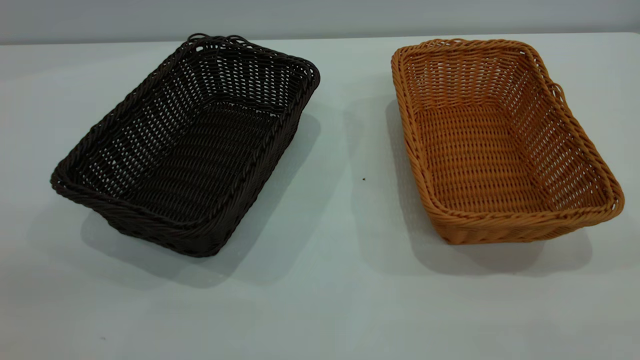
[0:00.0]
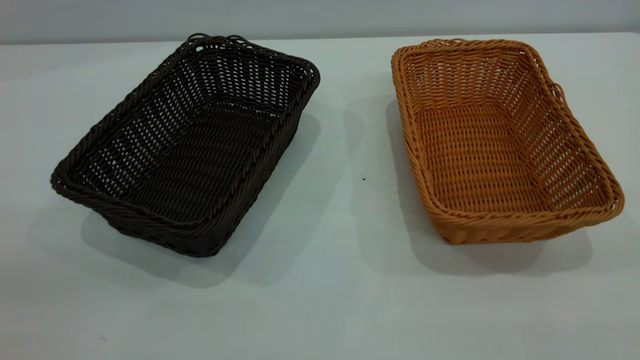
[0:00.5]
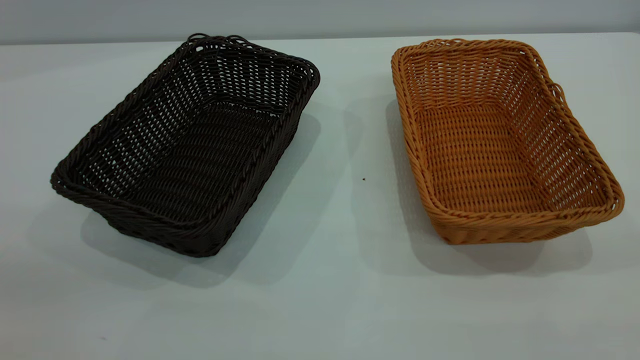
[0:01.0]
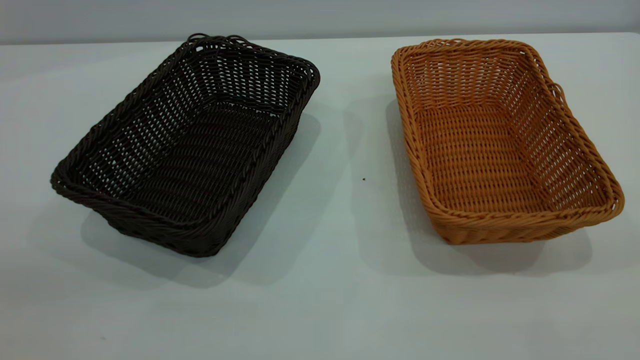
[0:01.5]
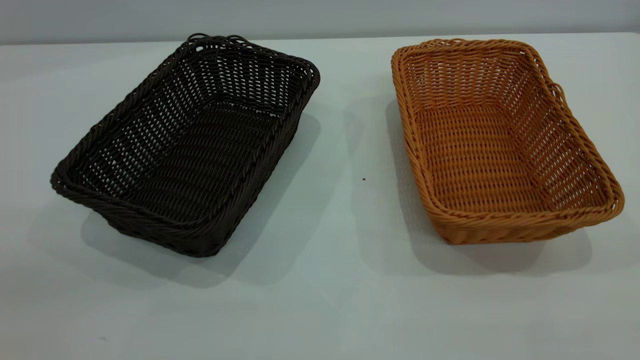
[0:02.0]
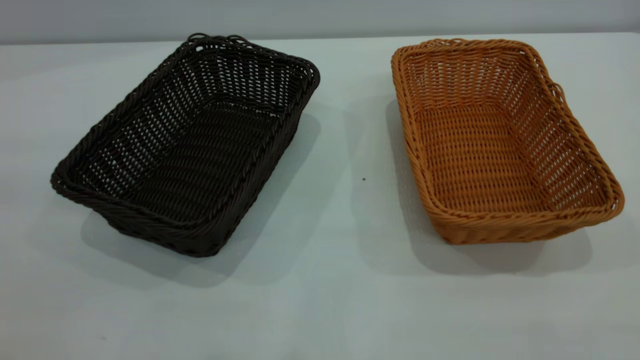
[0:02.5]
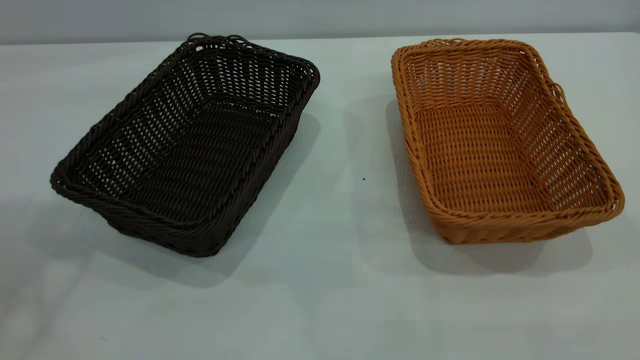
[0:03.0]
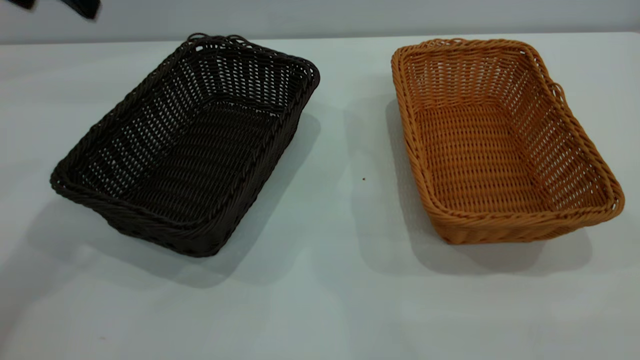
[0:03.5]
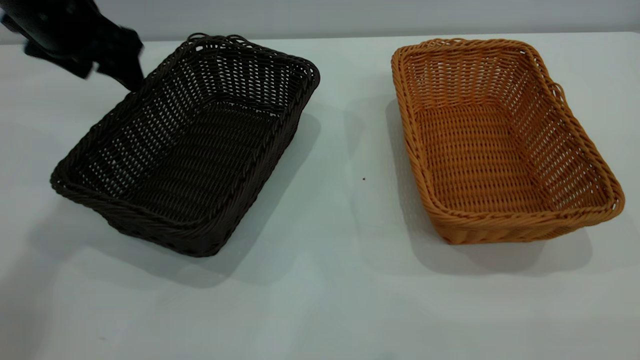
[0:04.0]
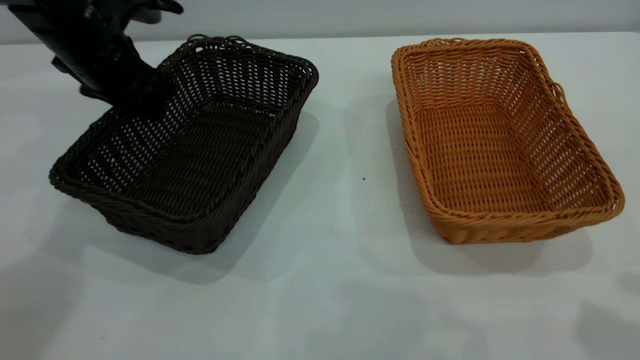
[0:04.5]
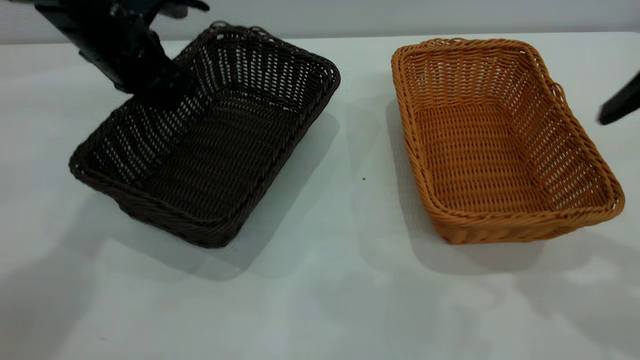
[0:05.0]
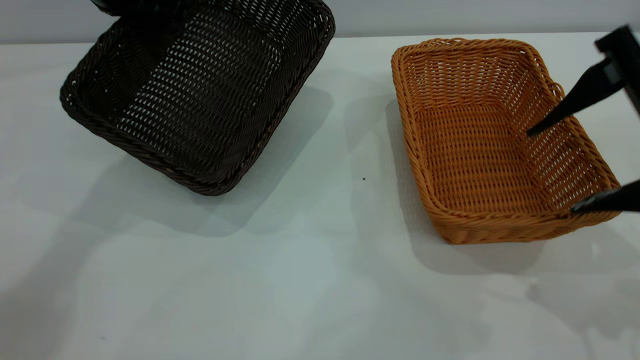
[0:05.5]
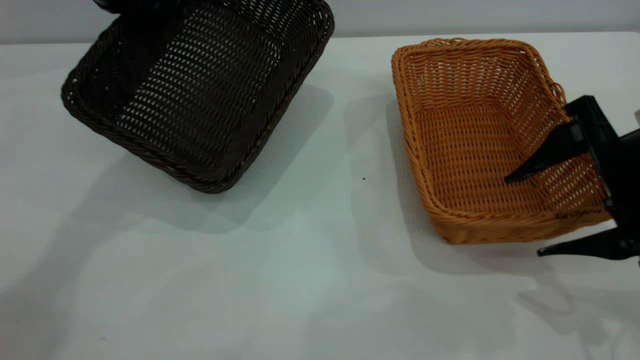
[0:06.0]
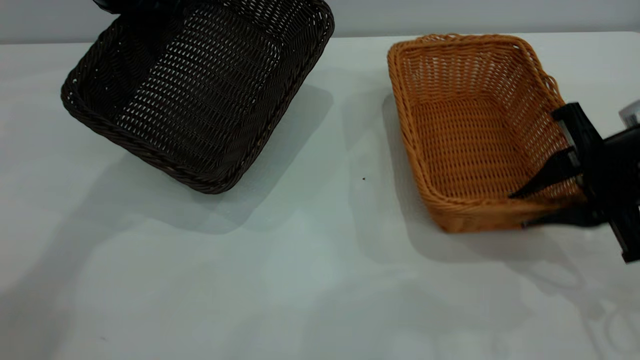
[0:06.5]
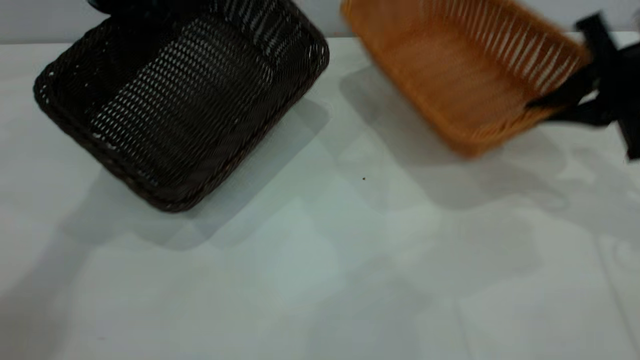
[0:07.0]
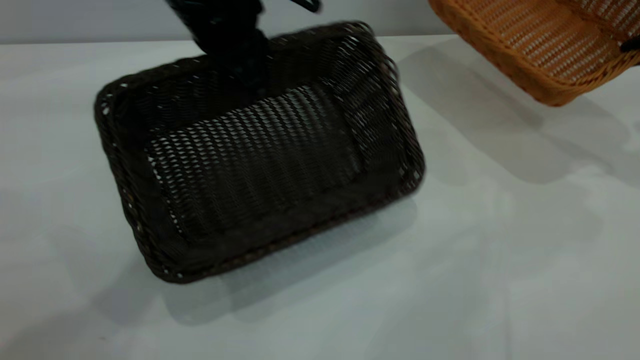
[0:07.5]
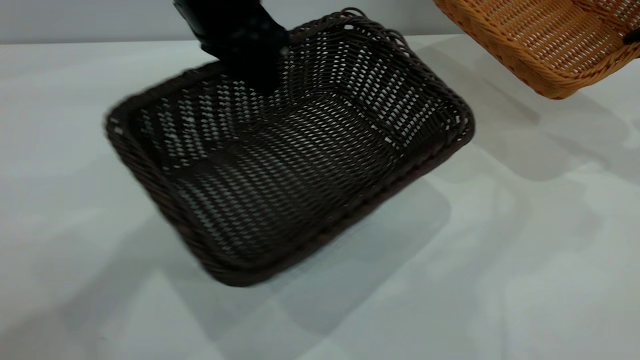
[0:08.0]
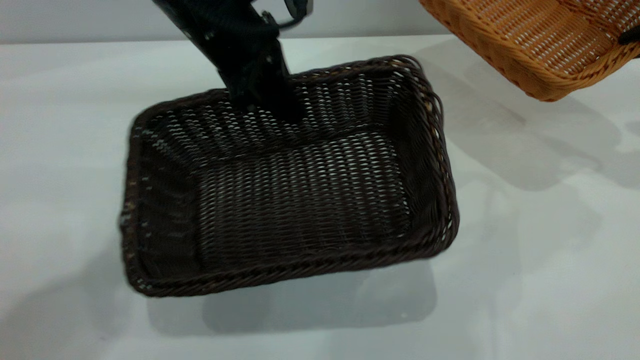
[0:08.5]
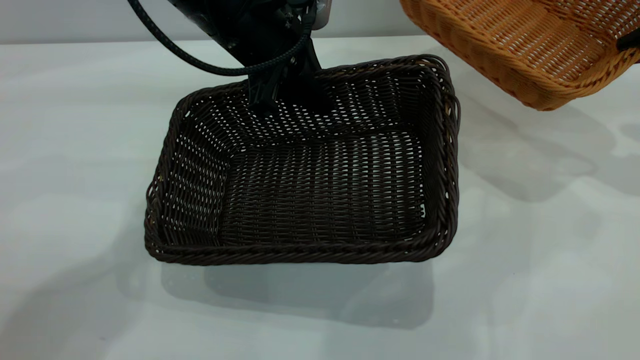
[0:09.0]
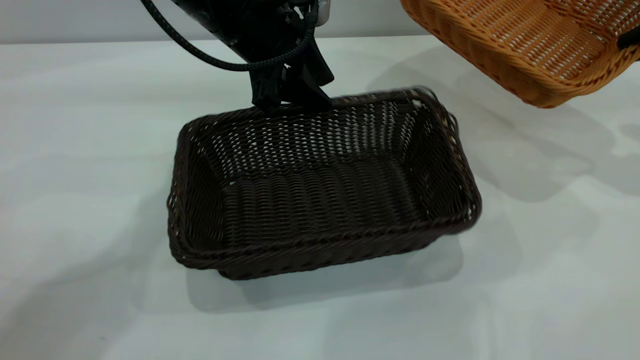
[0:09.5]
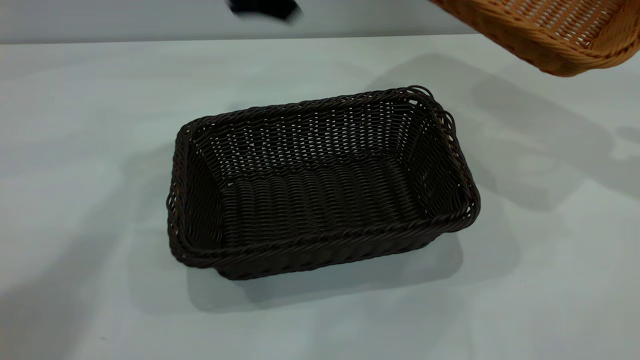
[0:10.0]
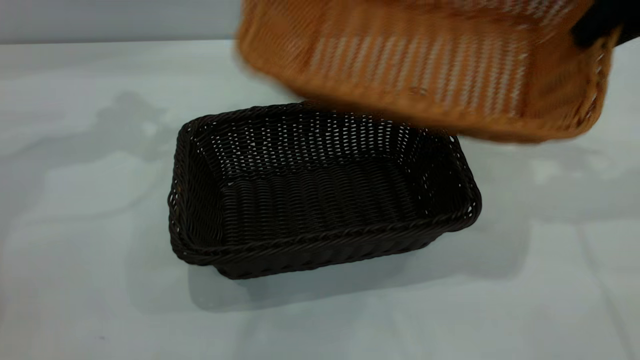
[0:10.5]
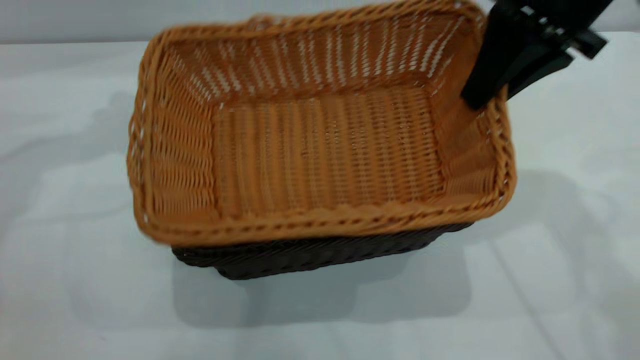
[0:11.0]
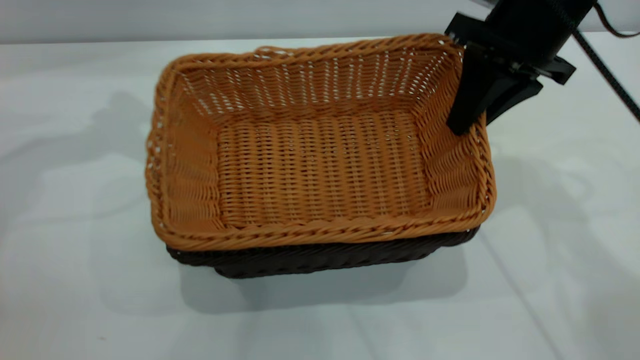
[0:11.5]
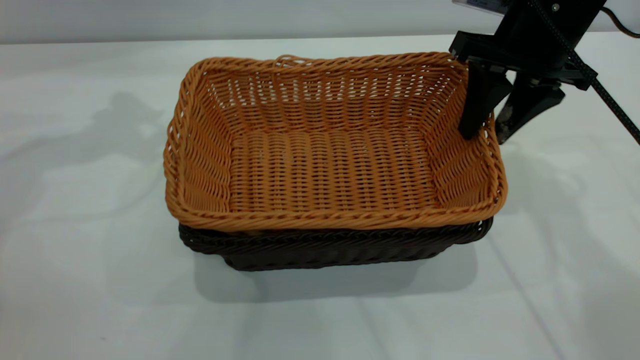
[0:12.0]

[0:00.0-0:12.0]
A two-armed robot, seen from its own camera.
Task of the whole recording: the left gripper grasp the black basket and place it in the center of the table, the right gripper grasp the brown basket and place it inside the black one.
Step, 0:00.0 to 0:06.5: Pick up the light basket with the right gripper.
Step, 0:07.0 to 0:09.5: Move the dark basket to the center of view.
0:00.0 to 0:02.0: Both grippers stay about where they are.
0:02.0 to 0:04.0: The left gripper moves forward, some 40 cm.
0:04.0 to 0:06.0: The right gripper moves downward and forward, some 25 cm. Meanwhile the left gripper changes place by approximately 5 cm, and closes its fingers.
0:06.0 to 0:08.0: The right gripper travels to the right, forward and upward by approximately 20 cm, and closes its fingers. The left gripper goes about 10 cm to the right and backward.
0:08.0 to 0:10.0: The right gripper shifts about 5 cm upward; the left gripper heads forward, covering some 5 cm, reaches about 5 cm downward, then returns, and opens up.
0:10.0 to 0:12.0: Both grippers travel together to the left, roughly 15 cm. The right gripper opens.

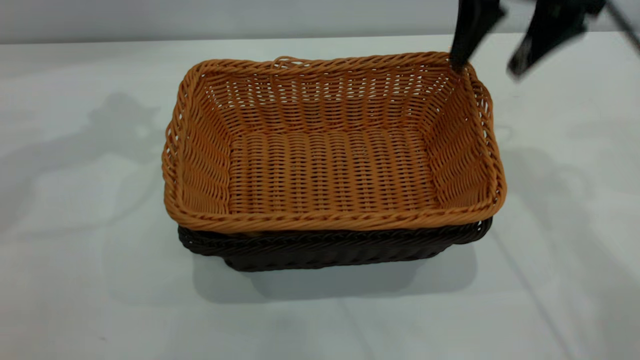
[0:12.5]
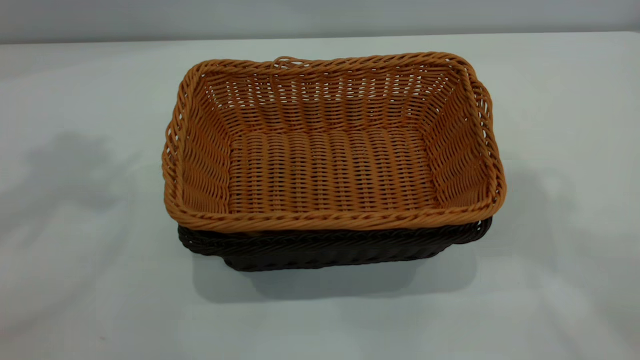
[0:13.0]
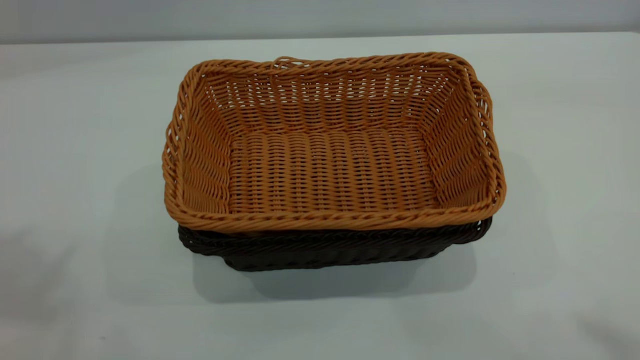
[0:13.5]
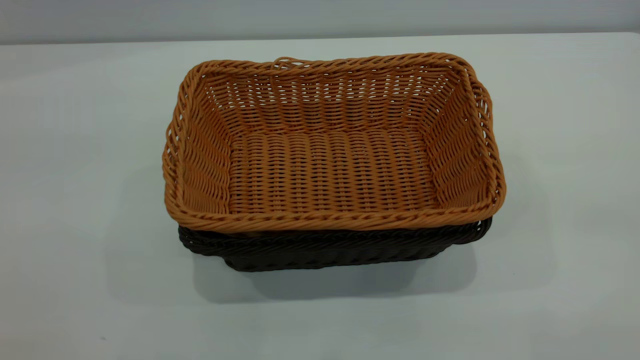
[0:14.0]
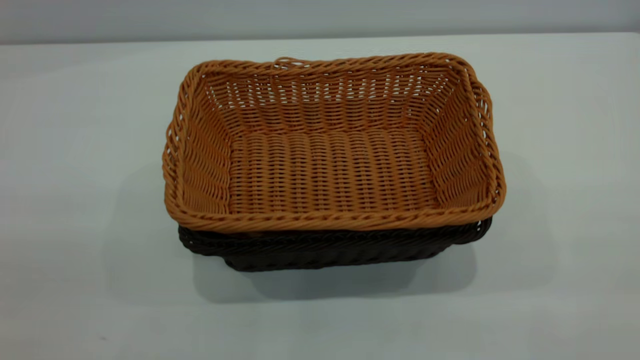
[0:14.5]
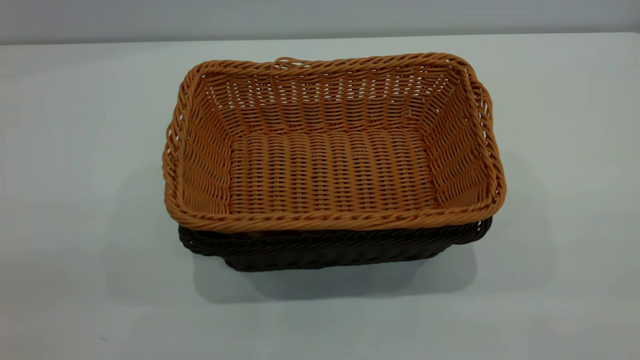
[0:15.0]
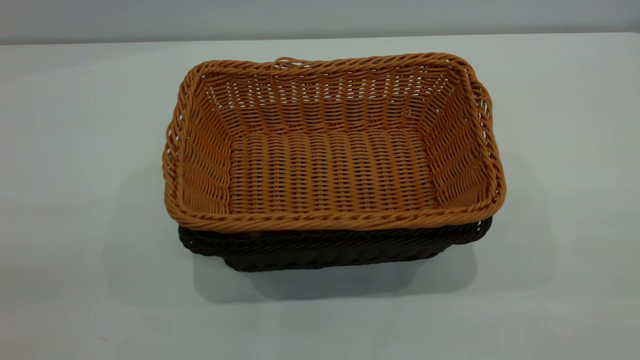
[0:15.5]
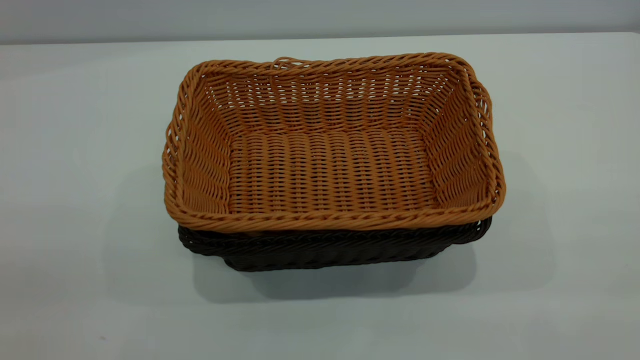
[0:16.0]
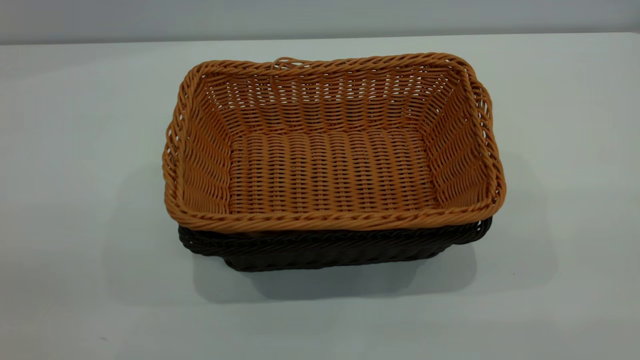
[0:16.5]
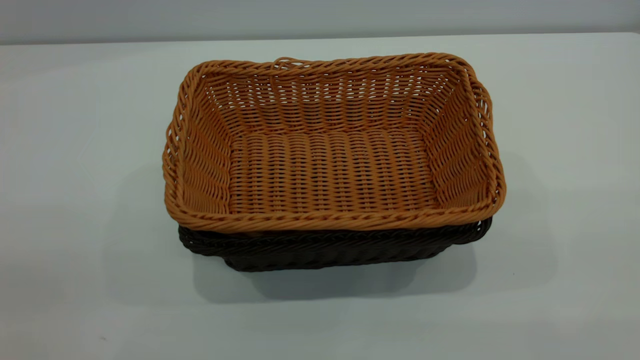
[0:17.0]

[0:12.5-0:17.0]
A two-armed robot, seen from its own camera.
Task of the whole recording: the left gripper grasp the black basket and place it in the center of the table, the right gripper grasp the brown basket and place it inside the black one.
0:12.5 to 0:14.5: Both grippers travel together backward, about 40 cm.

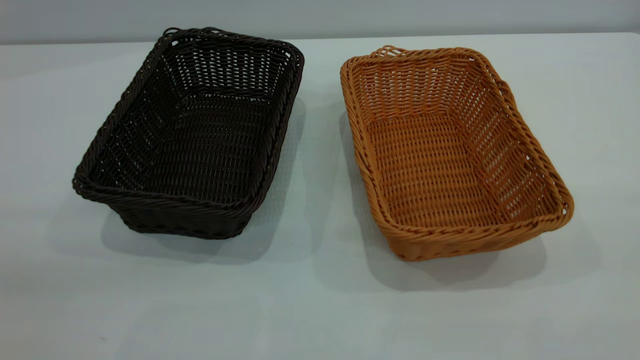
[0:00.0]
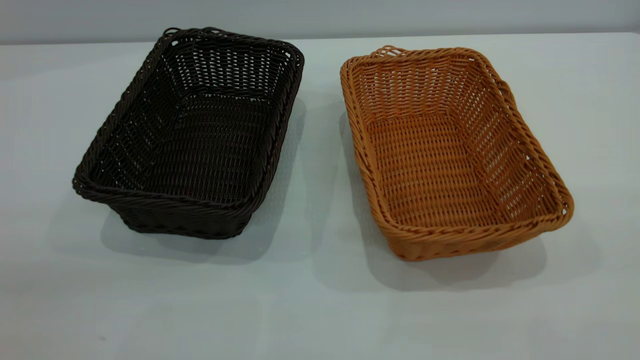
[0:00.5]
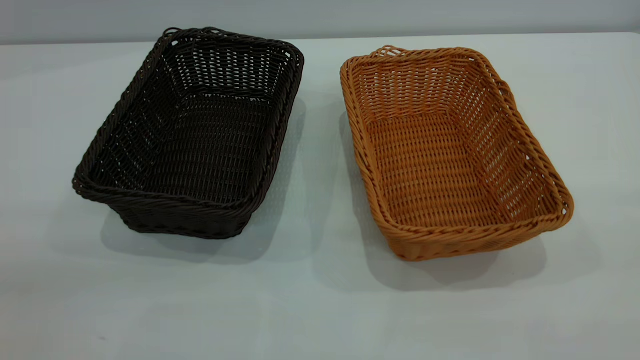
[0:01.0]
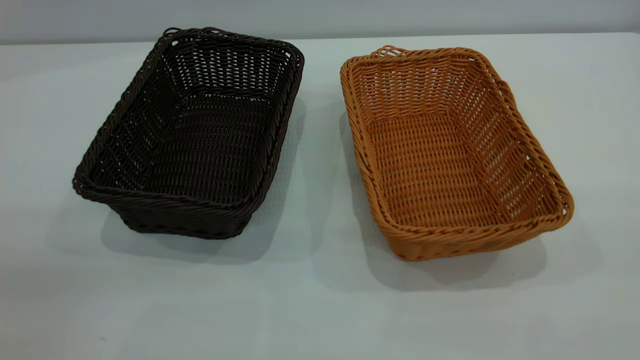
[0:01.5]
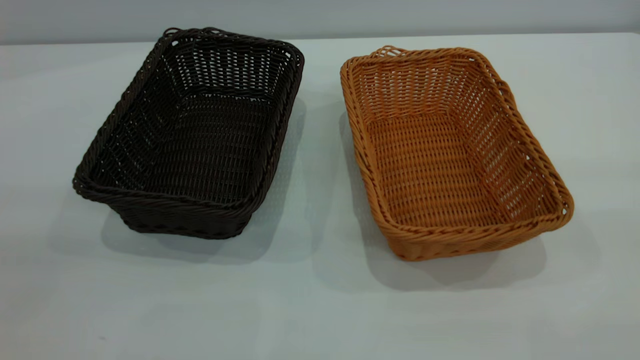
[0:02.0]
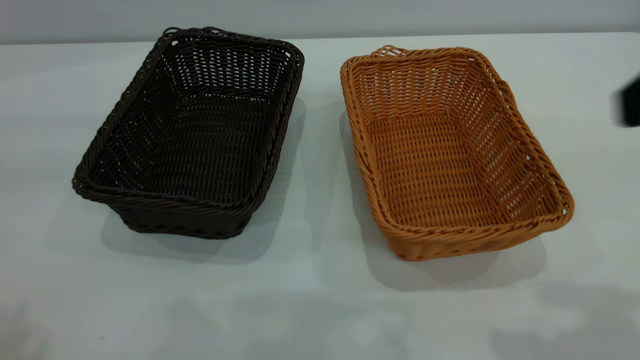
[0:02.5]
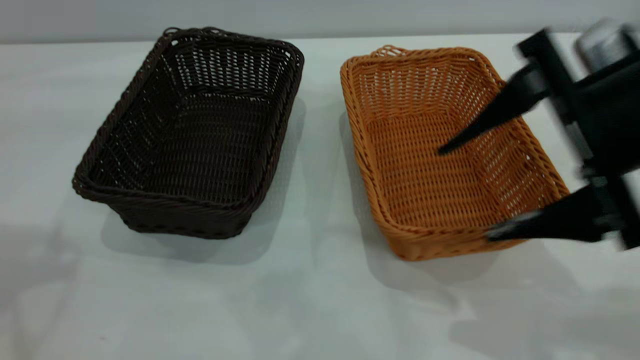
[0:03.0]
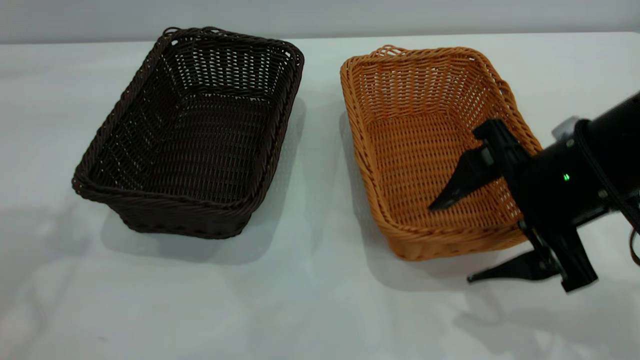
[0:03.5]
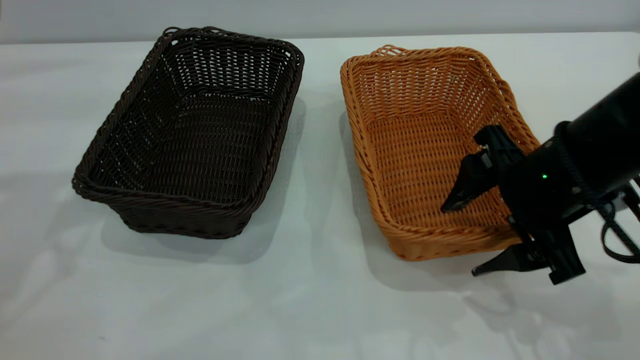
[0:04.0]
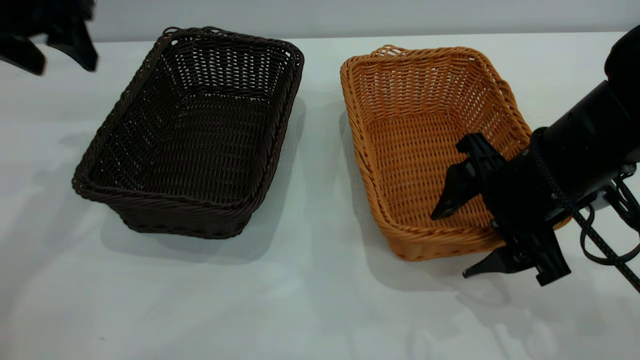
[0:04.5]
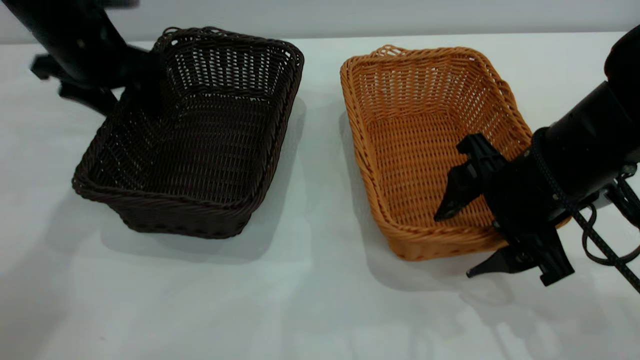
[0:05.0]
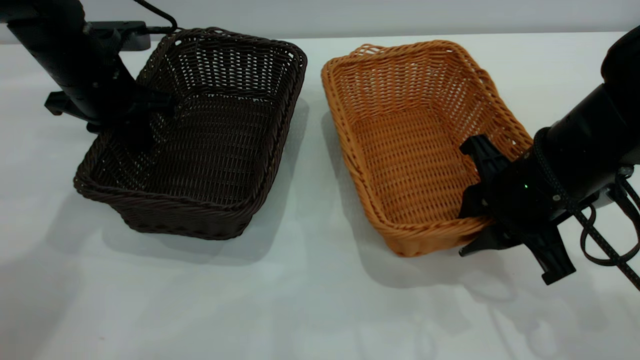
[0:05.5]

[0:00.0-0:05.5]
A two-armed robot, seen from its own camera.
Task of the whole recording: the left gripper grasp the black basket and place it in the center of the table, the right gripper grasp the brown basket and place it inside the black one.
0:02.0 to 0:03.5: The right gripper travels downward, forward and to the left by approximately 30 cm.
0:03.5 to 0:05.5: The left gripper heads downward and forward, covering roughly 25 cm, and closes up. Meanwhile the right gripper closes.
